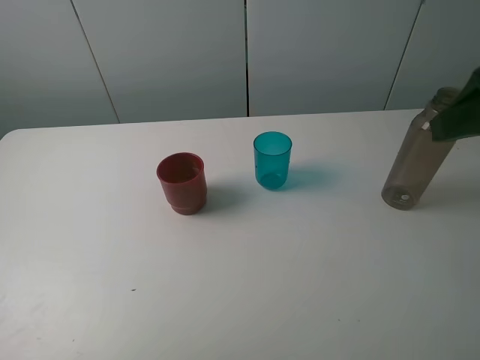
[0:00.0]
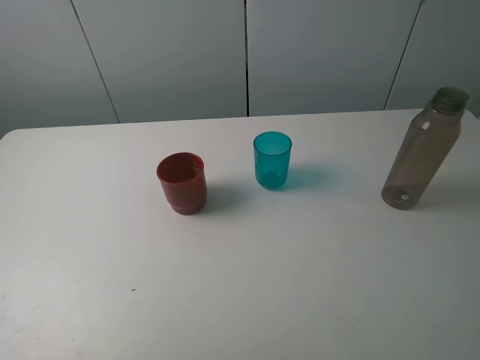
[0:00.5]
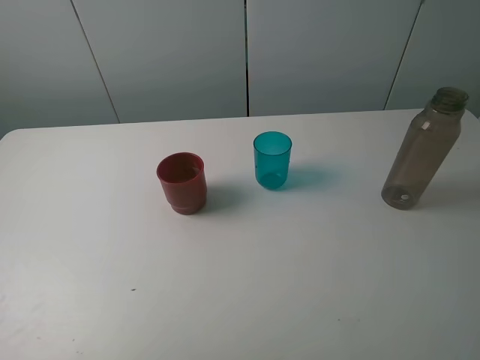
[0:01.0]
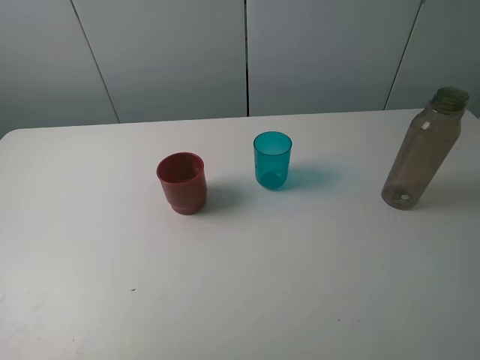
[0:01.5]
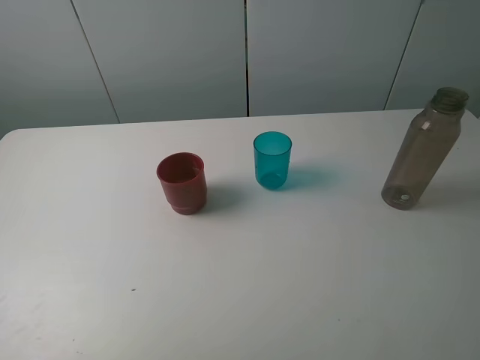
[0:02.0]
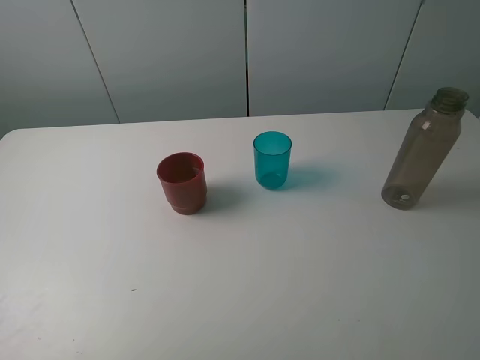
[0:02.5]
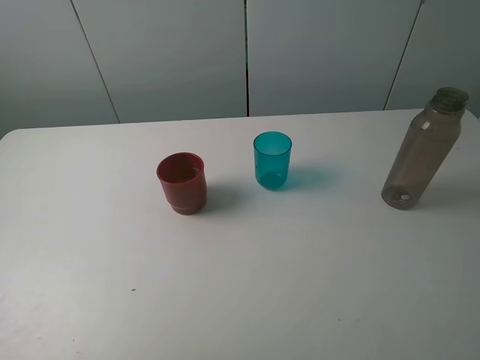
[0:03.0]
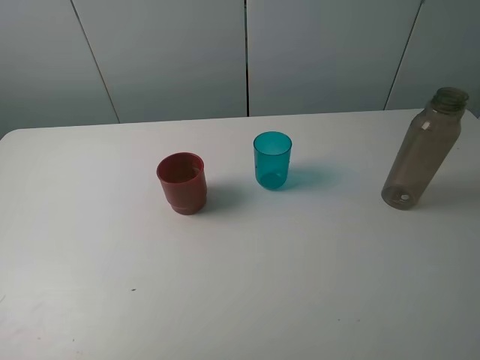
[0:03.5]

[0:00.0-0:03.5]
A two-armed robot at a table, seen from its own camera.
Task of the whole recording: pick up the bottle and pour water into the cup, then pick up the cup containing water and pour it into another cup.
0:00.0 to 0:02.0: The right gripper shifts roughly 15 cm backward.
0:02.0 to 0:03.5: Both grippers stay about where they are.

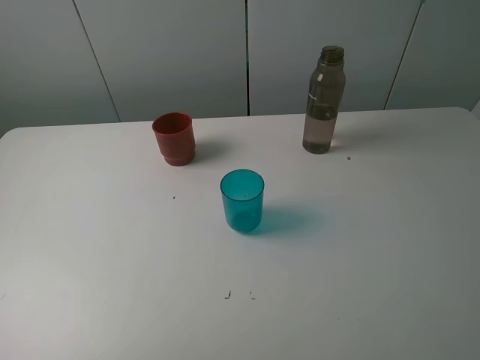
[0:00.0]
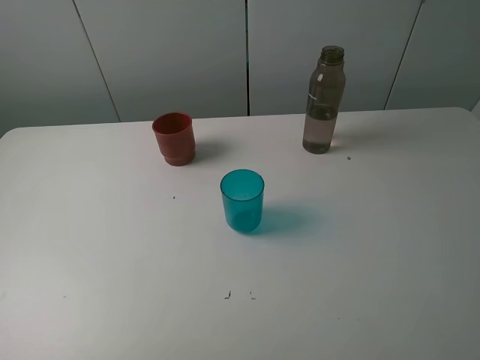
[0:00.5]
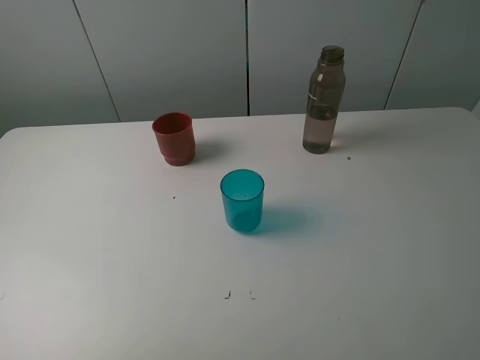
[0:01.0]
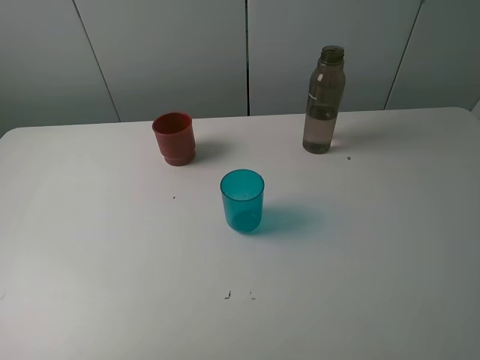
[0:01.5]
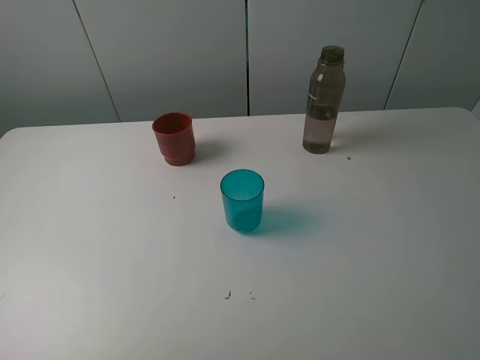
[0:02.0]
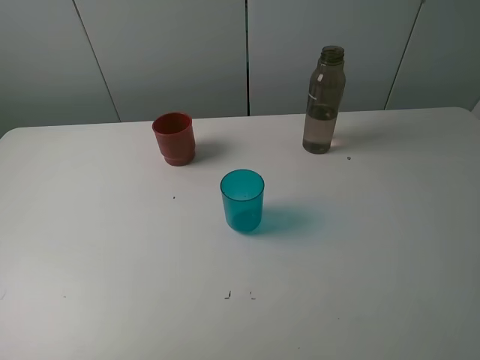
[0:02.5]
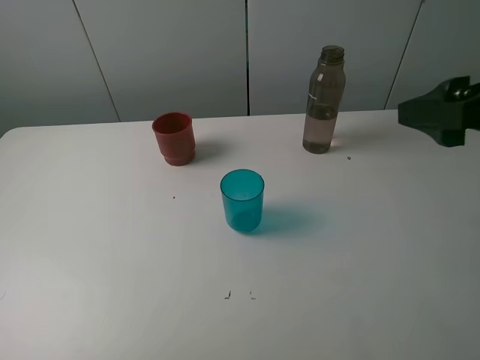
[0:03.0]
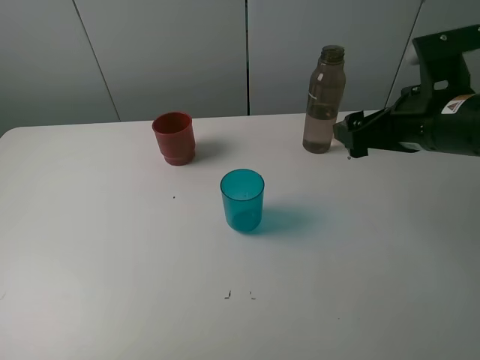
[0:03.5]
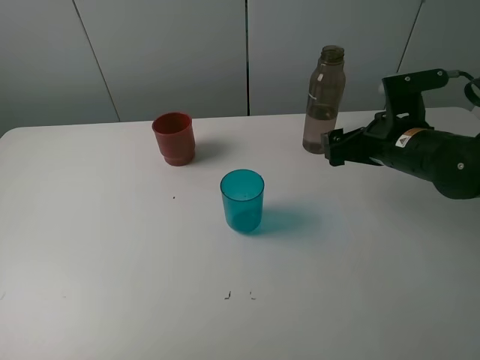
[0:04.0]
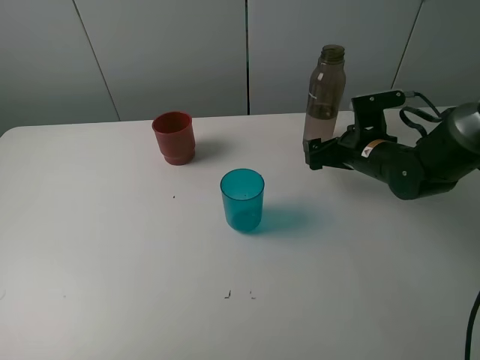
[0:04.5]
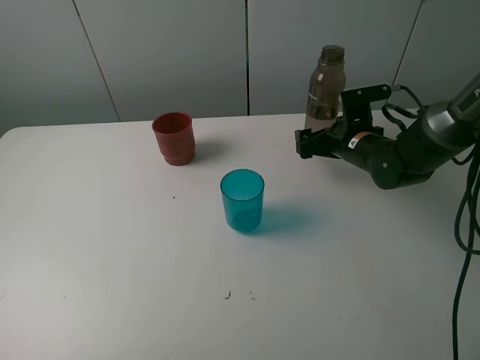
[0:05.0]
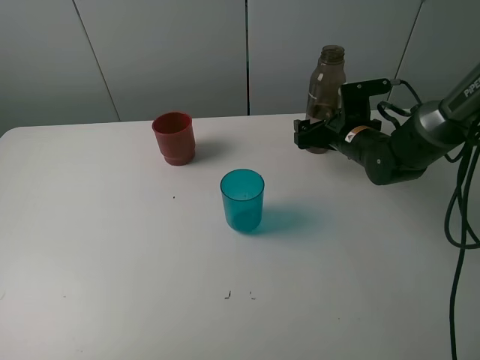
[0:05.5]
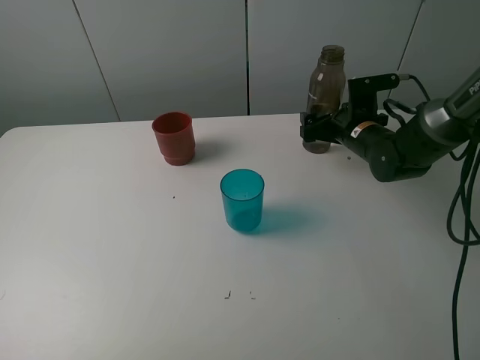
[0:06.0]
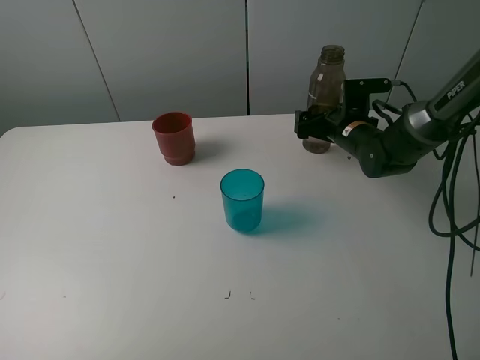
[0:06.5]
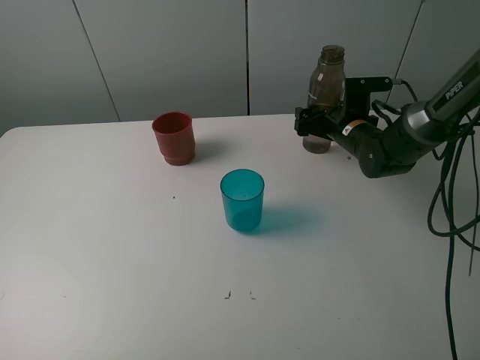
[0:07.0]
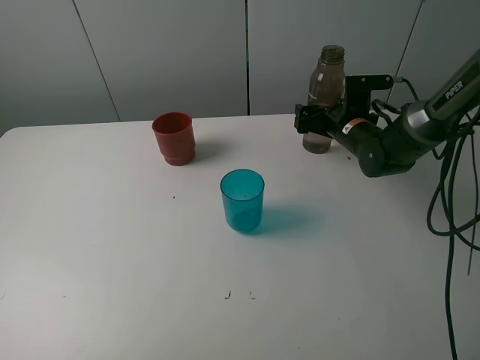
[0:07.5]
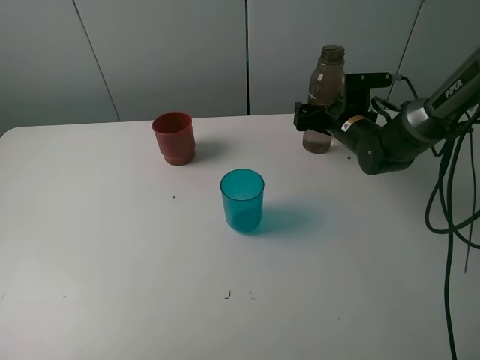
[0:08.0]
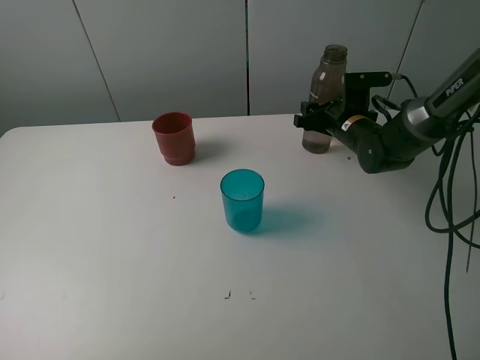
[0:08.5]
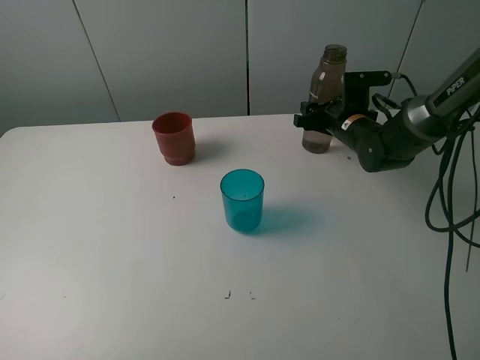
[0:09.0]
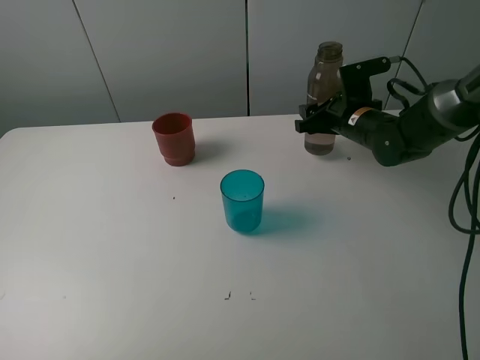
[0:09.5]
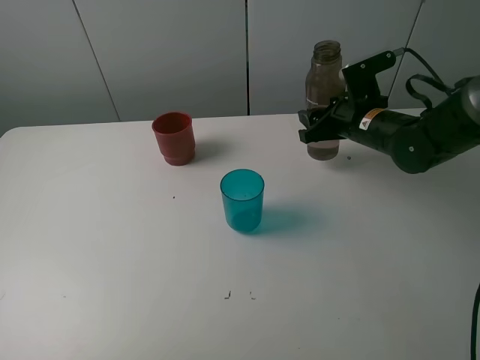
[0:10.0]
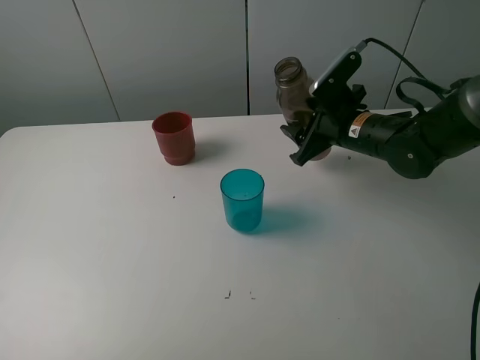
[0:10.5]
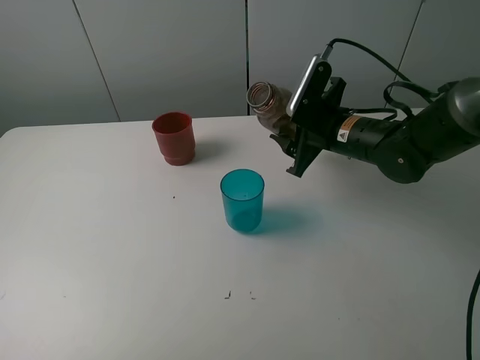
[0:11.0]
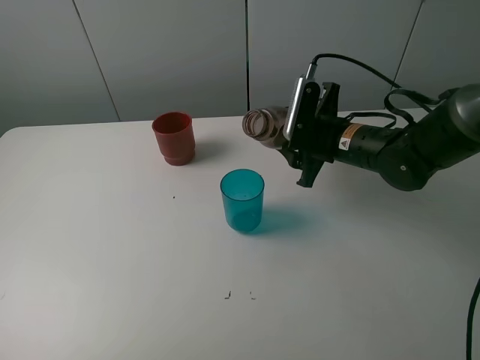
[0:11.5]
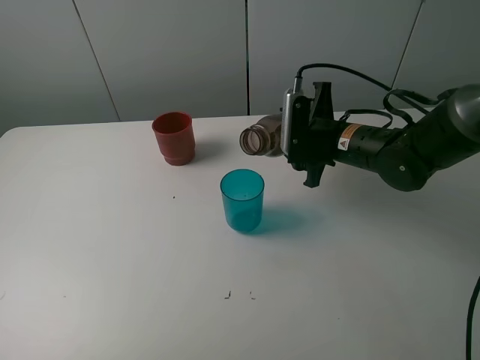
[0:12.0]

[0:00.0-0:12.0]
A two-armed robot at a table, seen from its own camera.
Task of the whole recording: pick up the bottle and pour water into the cup, then pick up the cup containing water and pour it into another cup.
Step, 0:00.0 to 0:08.0: Grasp the brown bottle with the right gripper.
0:00.0 to 0:02.0: Both grippers stay put.
0:02.0 to 0:04.0: The right gripper goes roughly 35 cm forward and downward.
0:04.0 to 0:06.0: The right gripper goes some 10 cm forward and downward.
0:06.0 to 0:08.0: The grippers stay close to where they were, moving slightly.
0:08.0 to 0:10.0: The right gripper heads backward and upward, covering some 10 cm, and closes up.
0:10.0 to 0:12.0: The right gripper changes place by roughly 5 cm.

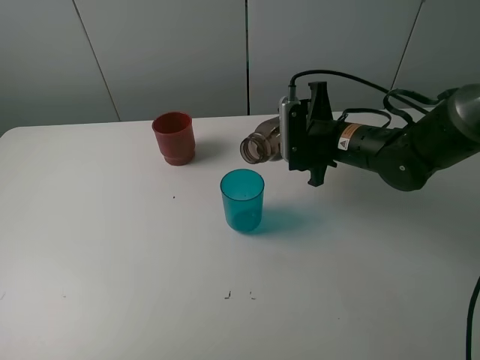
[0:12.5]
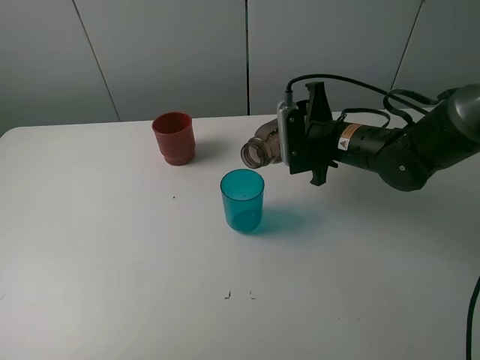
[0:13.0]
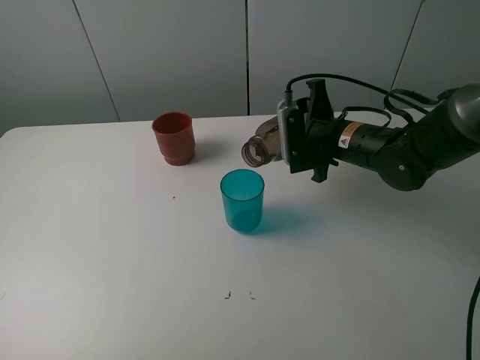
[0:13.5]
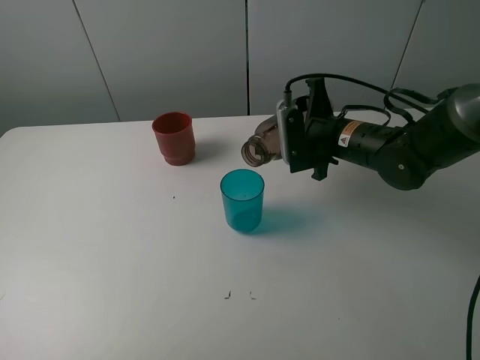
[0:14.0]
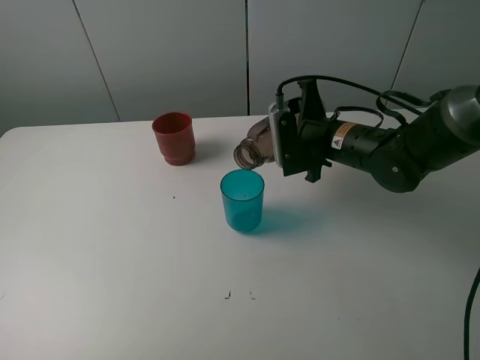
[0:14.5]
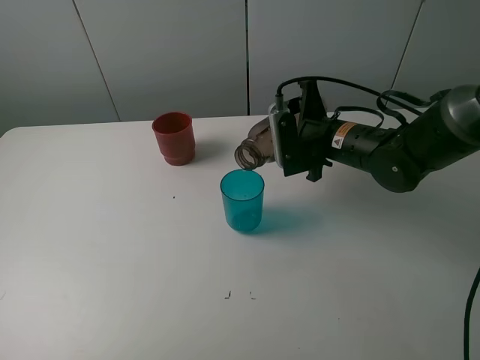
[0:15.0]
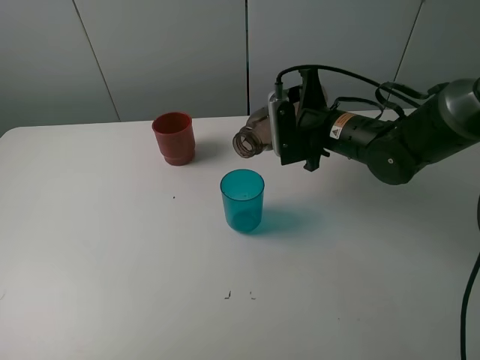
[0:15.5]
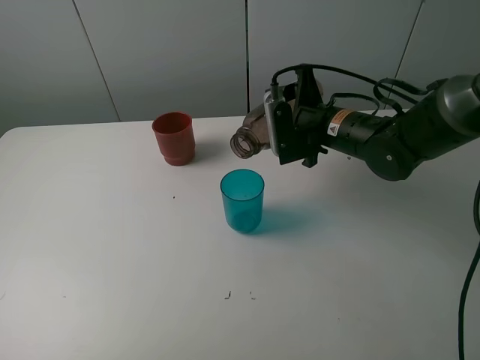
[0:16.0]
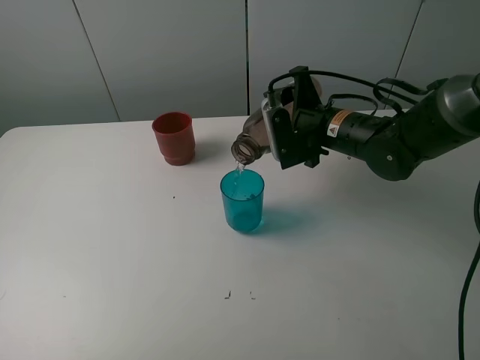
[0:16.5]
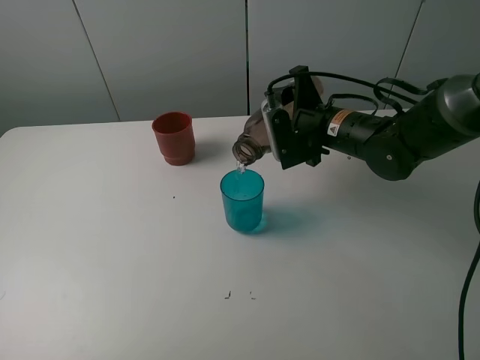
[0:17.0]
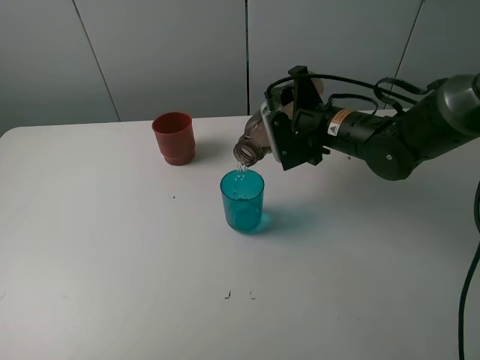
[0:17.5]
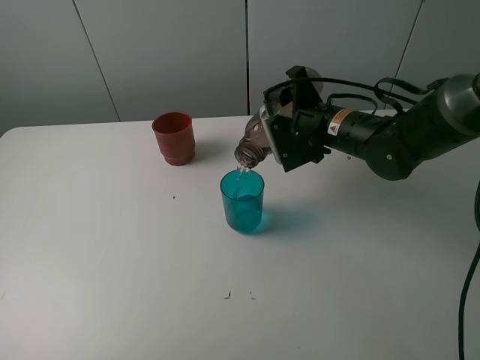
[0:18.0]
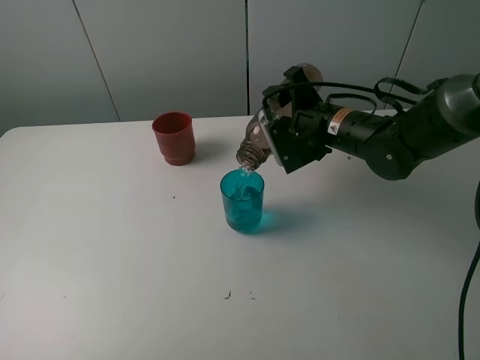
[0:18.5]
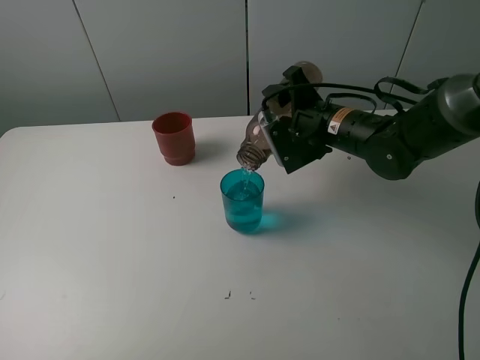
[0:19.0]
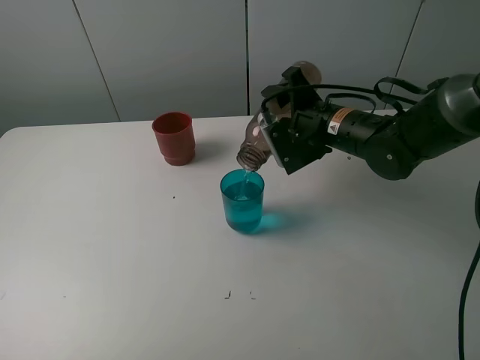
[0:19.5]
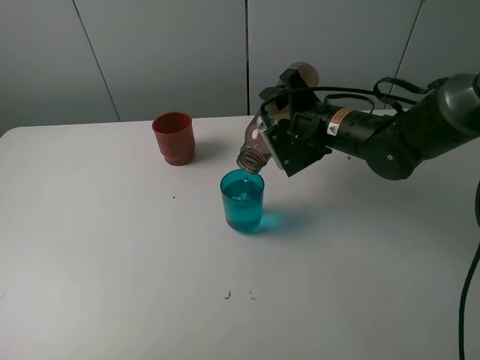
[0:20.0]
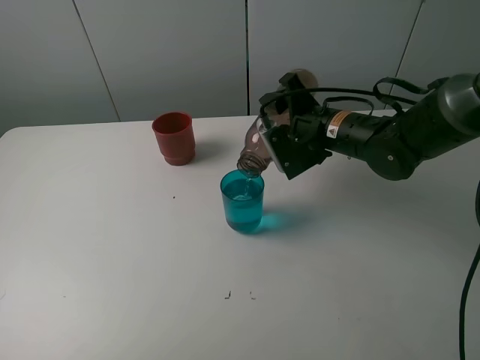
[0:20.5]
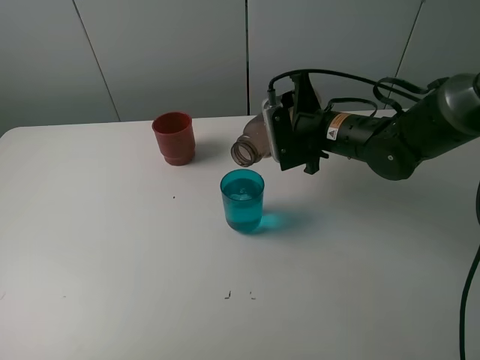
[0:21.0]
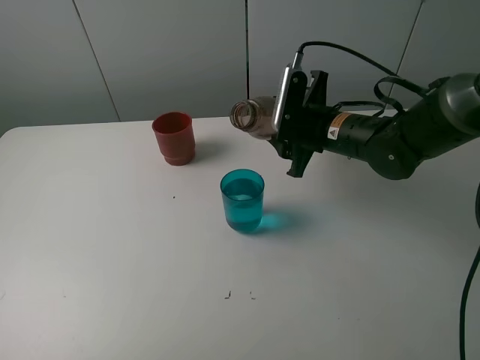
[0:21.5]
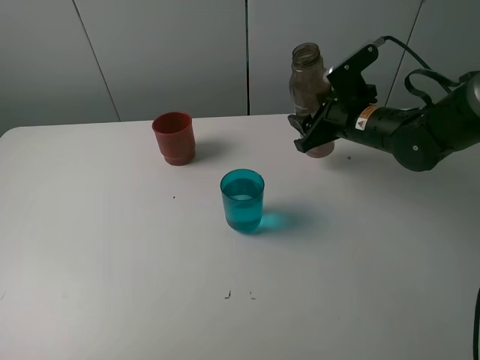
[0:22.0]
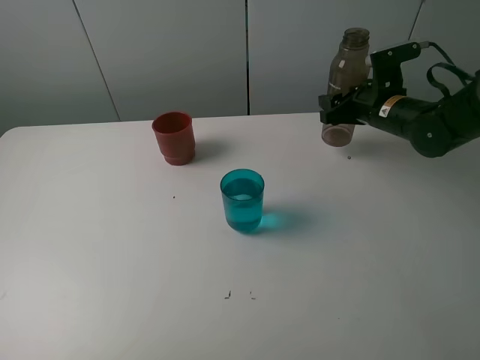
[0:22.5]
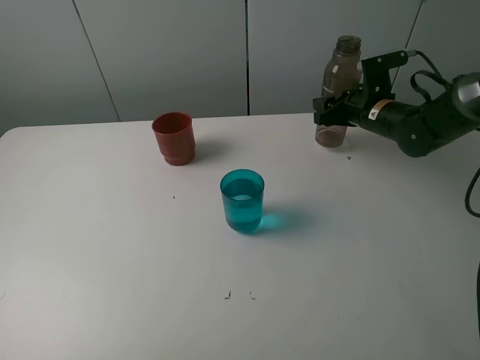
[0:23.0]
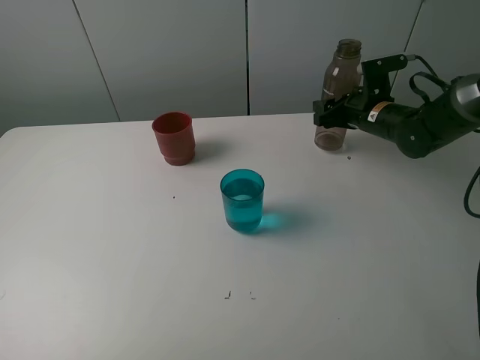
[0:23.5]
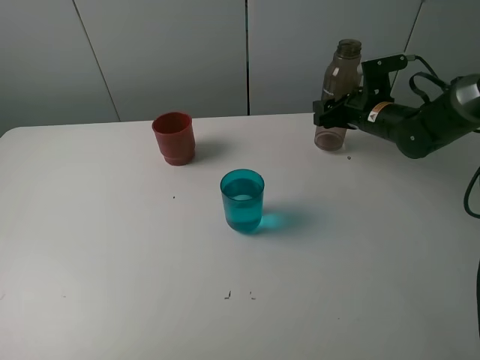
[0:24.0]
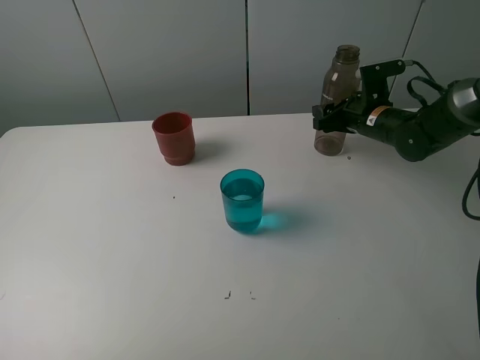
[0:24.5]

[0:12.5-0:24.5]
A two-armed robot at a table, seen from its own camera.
Task of the whole recording: pick up the bottle and pour water into the cup, then pick up the cup containing water and pour it into another cup.
Step, 0:12.5 to 0:20.5: Pour water from brown bottle to blue cup with the right gripper.
0:12.5 to 0:16.5: The grippers stay close to where they were, moving slightly.
0:16.5 to 0:18.5: The grippers make only small movements.
0:18.5 to 0:20.5: Neither gripper changes place.
0:20.5 to 0:22.5: The right gripper goes about 10 cm to the right and forward.
0:22.5 to 0:24.5: The grippers make only small movements.
